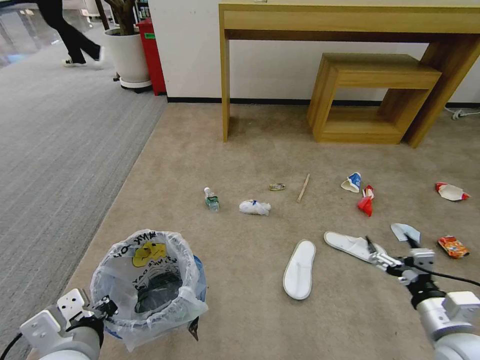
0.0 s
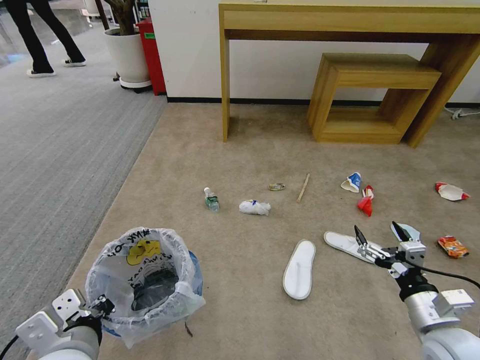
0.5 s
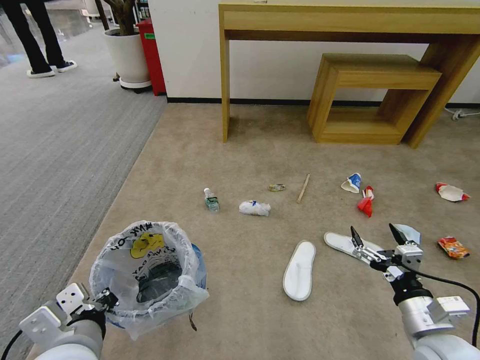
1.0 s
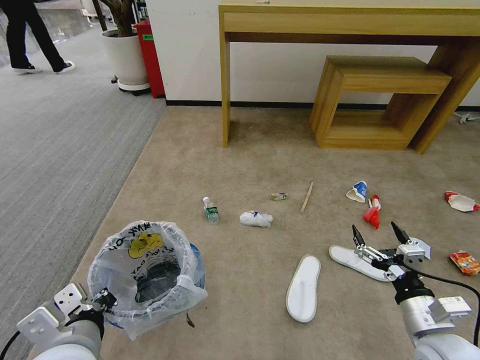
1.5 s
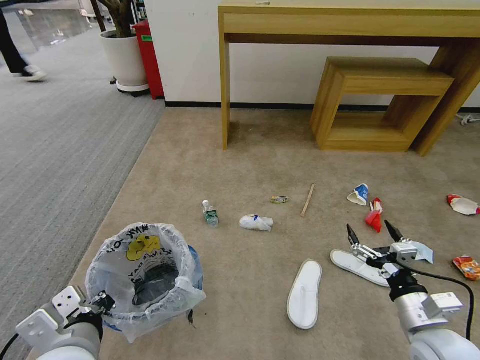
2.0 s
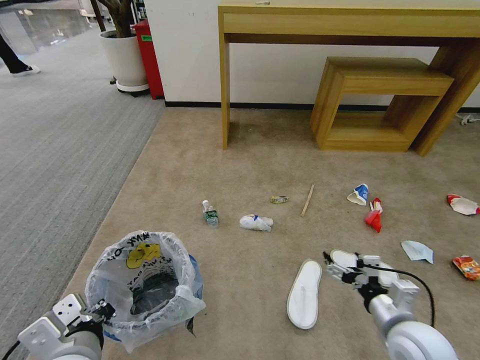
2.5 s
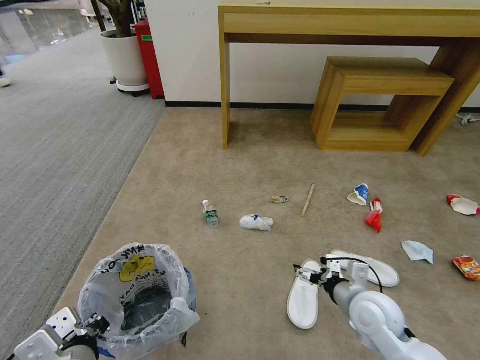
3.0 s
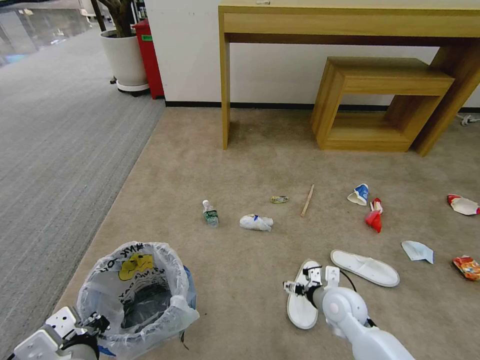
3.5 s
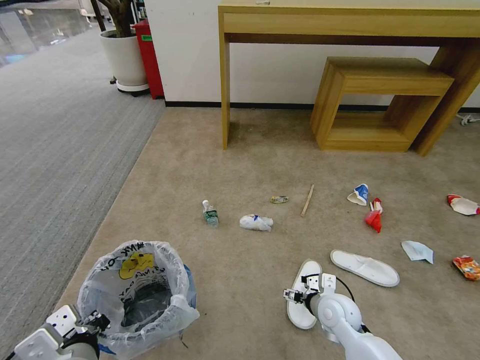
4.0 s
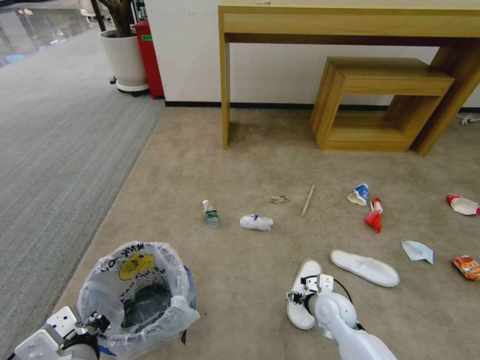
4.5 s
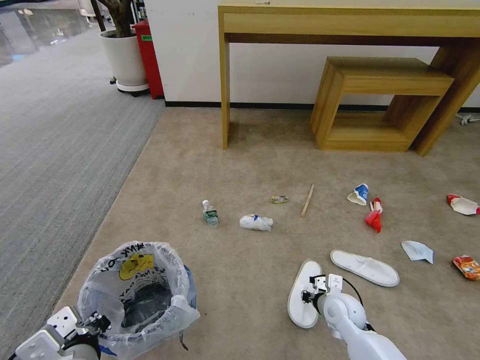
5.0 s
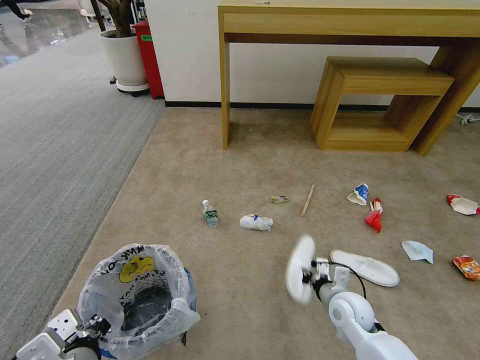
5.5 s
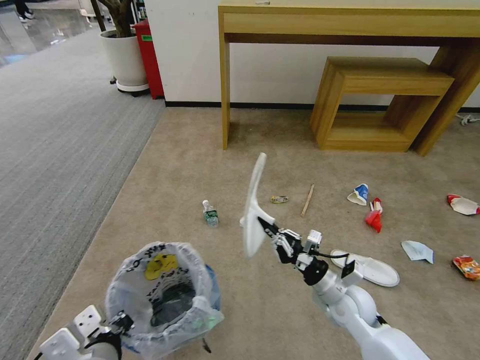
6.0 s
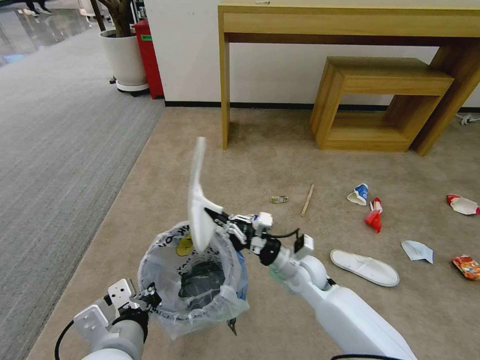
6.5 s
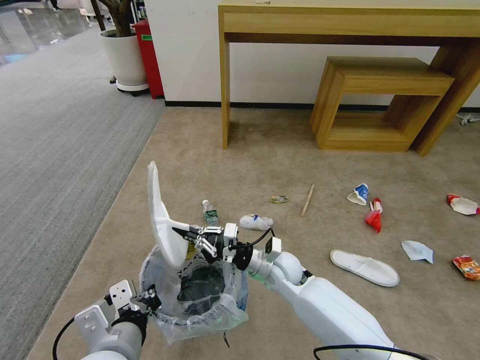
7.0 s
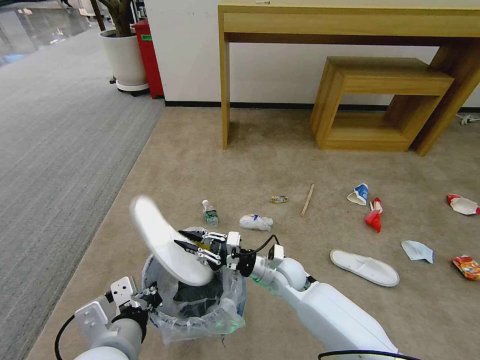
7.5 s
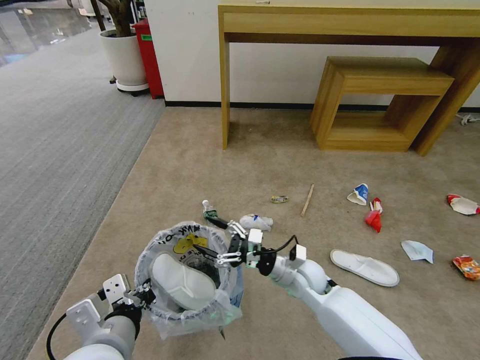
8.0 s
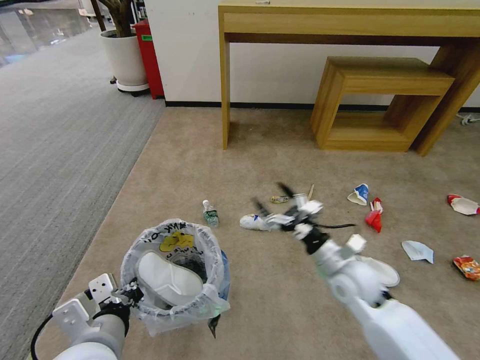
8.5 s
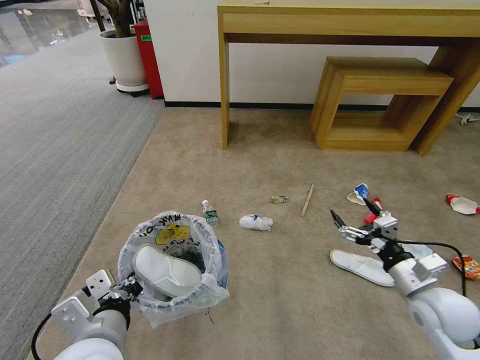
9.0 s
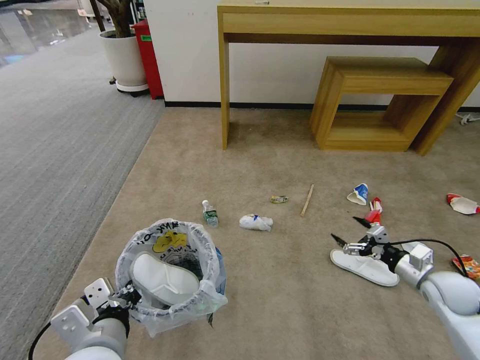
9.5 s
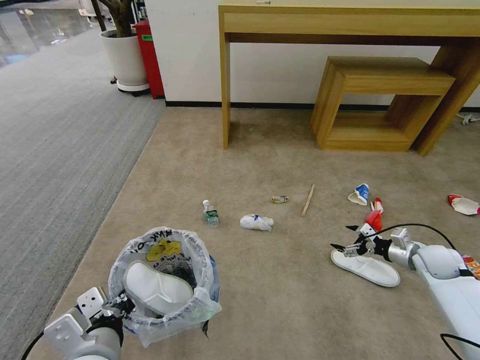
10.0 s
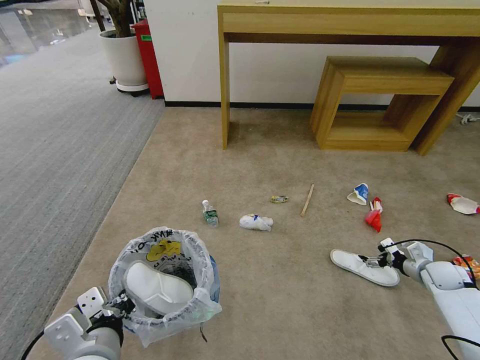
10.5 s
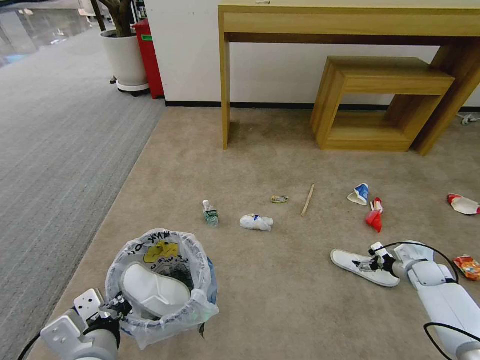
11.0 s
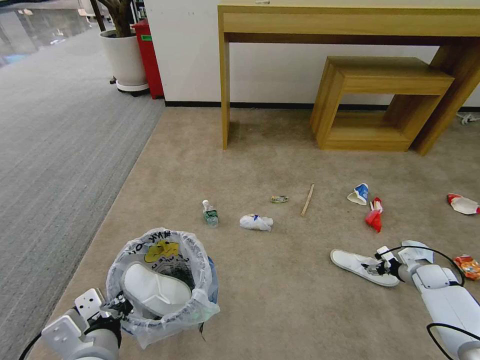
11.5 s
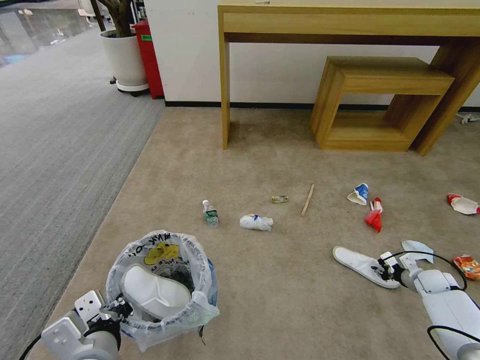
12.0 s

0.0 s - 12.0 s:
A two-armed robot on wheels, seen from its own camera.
Task of the whole recording: Pick up the trash bin and place the garbage on the floor into it.
2.0 s - 4.0 s: The right gripper heads downward, to the left and forward, covering about 20 cm.
4.0 s - 6.0 s: The right gripper goes about 5 cm upward, and closes its fingers.
6.0 s - 8.0 s: The right gripper shifts roughly 10 cm to the left and forward, and opens up.
8.0 s - 10.0 s: The right gripper travels to the right by some 35 cm.
10.0 s - 12.0 s: The right gripper is displaced downward and to the right by roughly 15 cm, and closes its fingers.

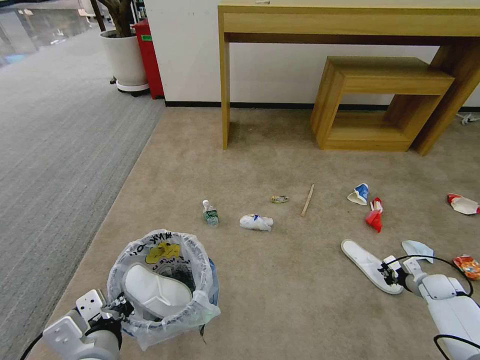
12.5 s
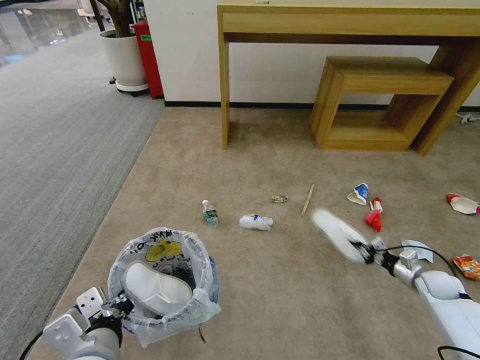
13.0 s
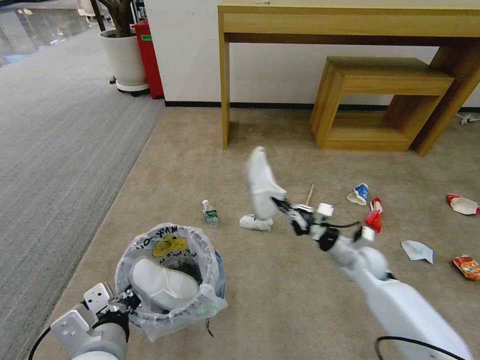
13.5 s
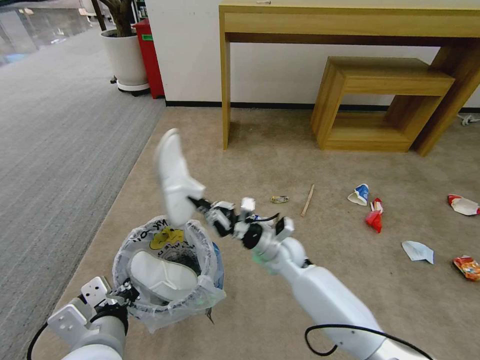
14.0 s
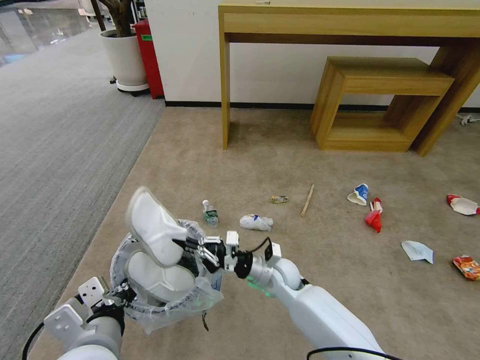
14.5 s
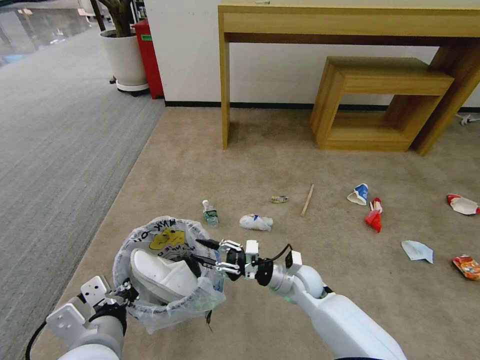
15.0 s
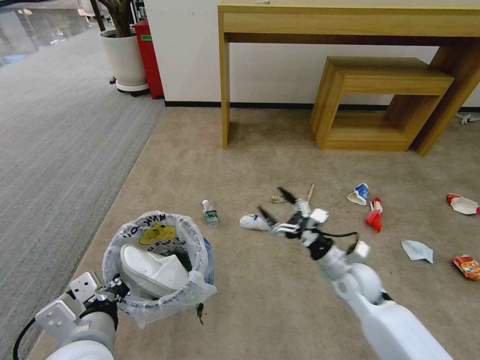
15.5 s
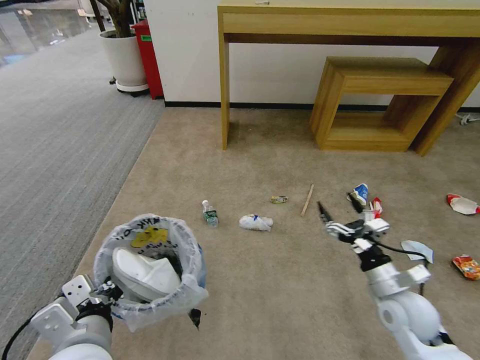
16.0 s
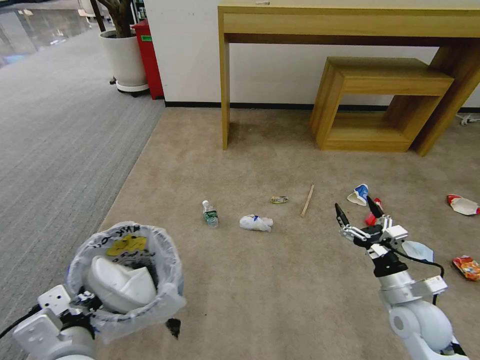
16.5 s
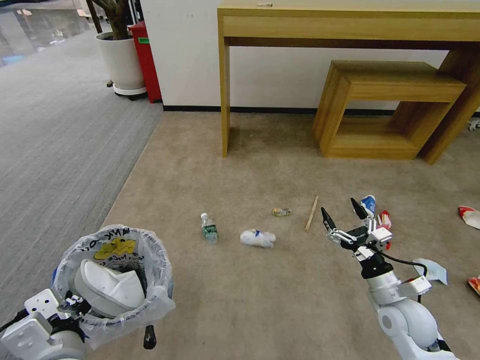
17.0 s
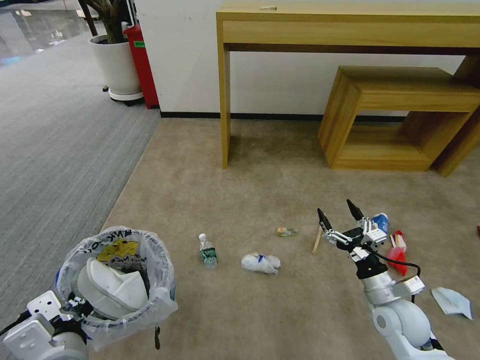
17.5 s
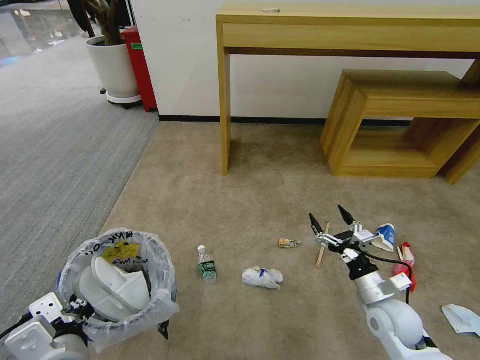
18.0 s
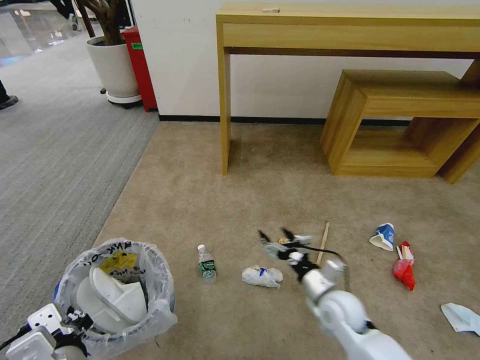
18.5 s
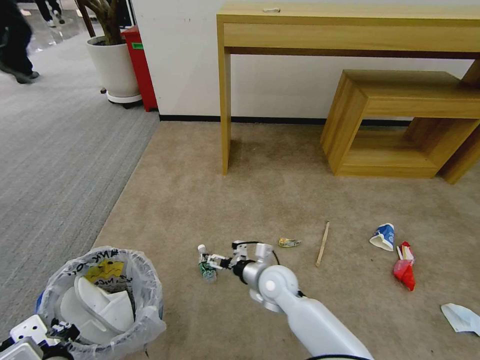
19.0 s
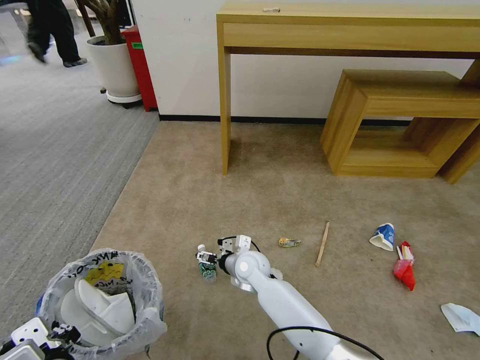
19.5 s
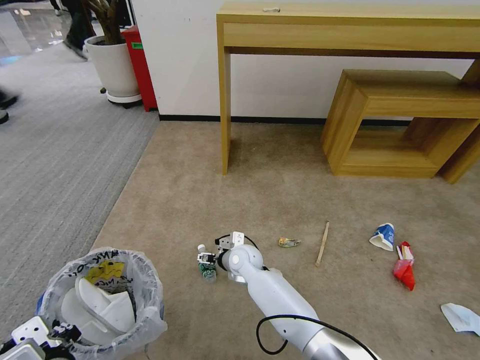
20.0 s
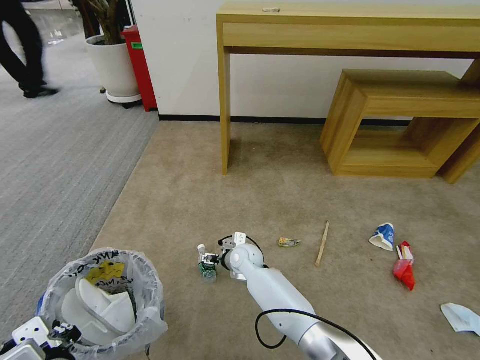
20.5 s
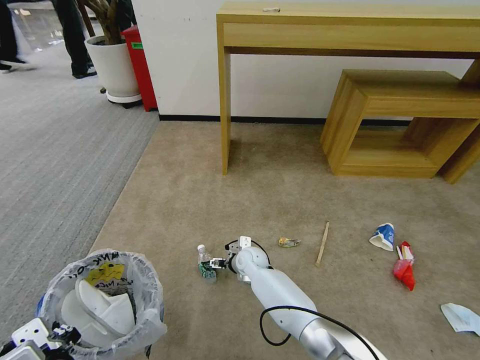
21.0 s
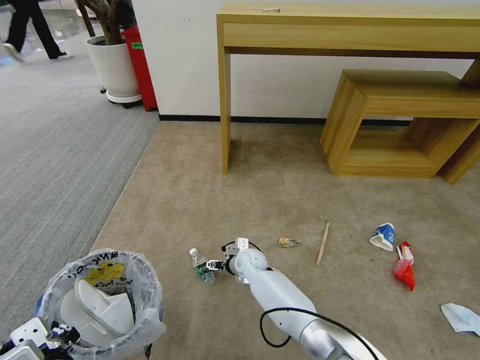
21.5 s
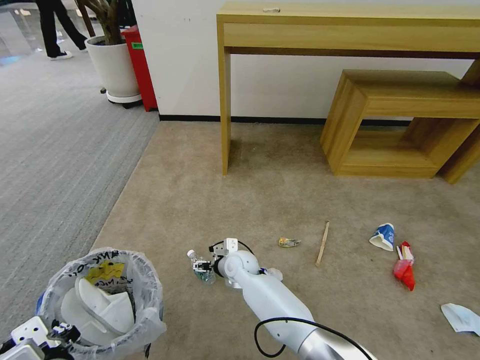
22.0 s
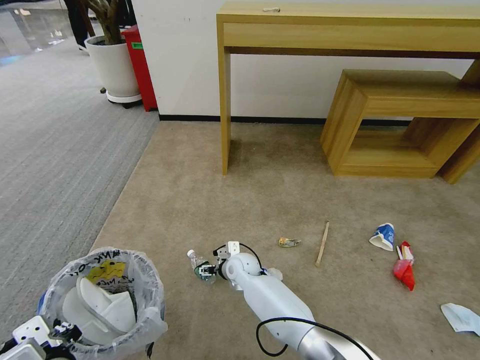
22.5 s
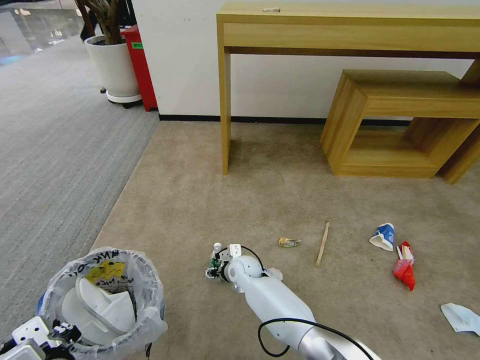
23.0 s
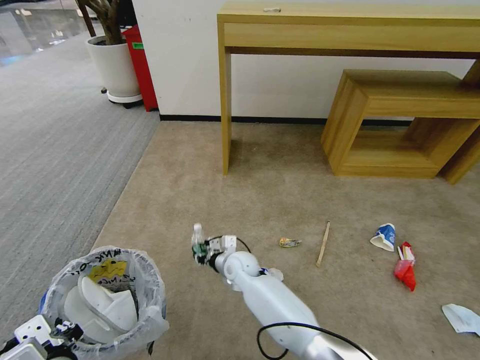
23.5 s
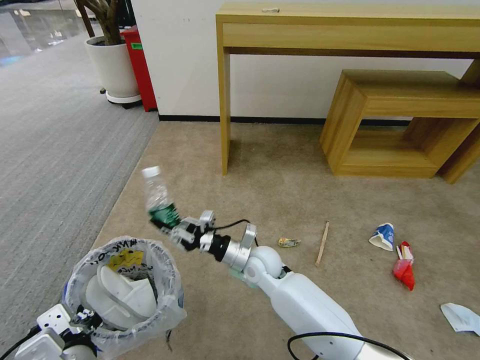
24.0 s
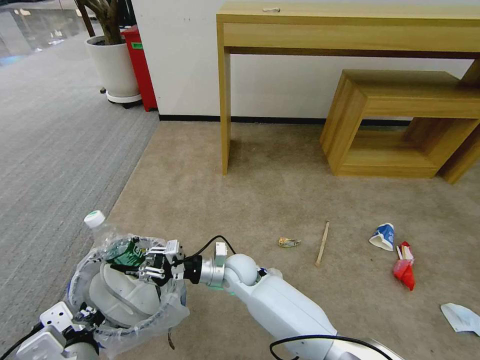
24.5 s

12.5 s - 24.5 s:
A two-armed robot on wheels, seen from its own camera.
Task of the whole recording: Pick up the trash bin and place the garbage on the floor into it.
12.5 s - 14.5 s: The right gripper travels to the left by about 50 cm.
14.5 s - 16.5 s: The right gripper is displaced to the right and backward by some 30 cm, and opens.
16.5 s - 18.5 s: The right gripper shifts some 15 cm to the left.
18.5 s - 20.5 s: The right gripper heads to the left and forward, covering roughly 25 cm.
20.5 s - 22.5 s: The grippers move only a little.
22.5 s - 24.5 s: The right gripper heads upward, covering roughly 10 cm, and closes up.

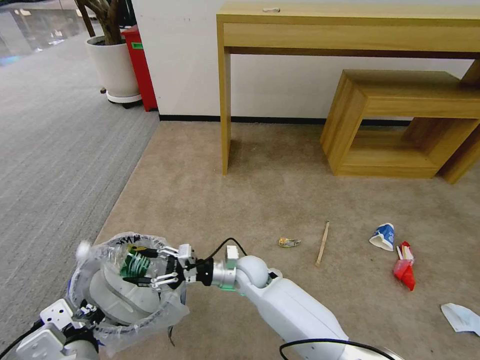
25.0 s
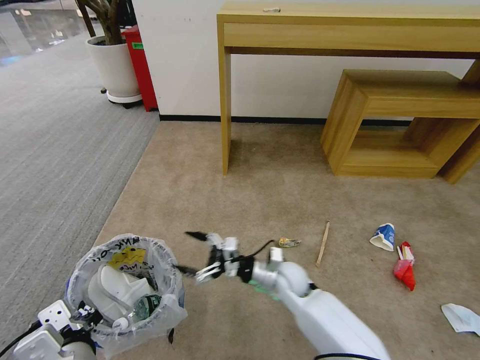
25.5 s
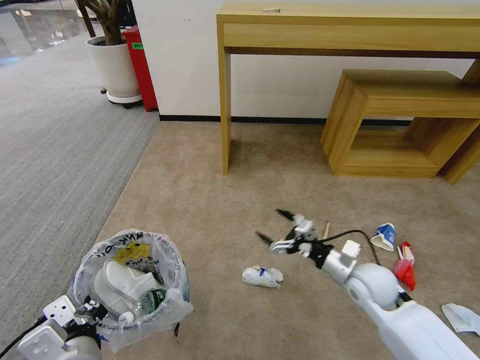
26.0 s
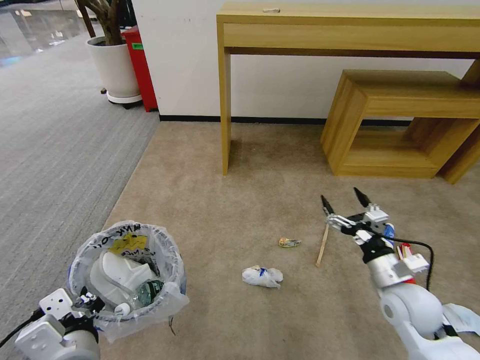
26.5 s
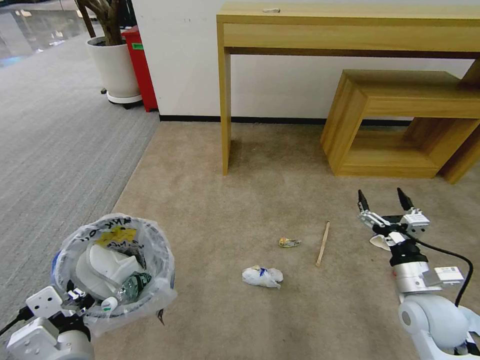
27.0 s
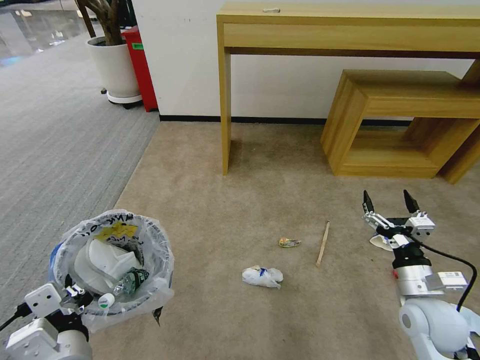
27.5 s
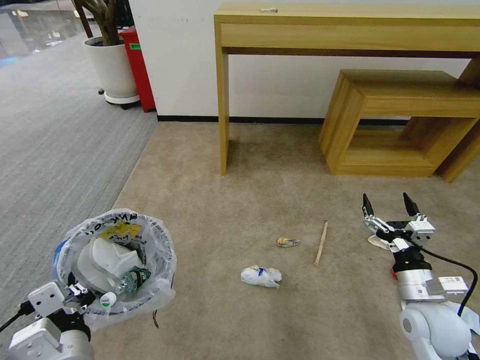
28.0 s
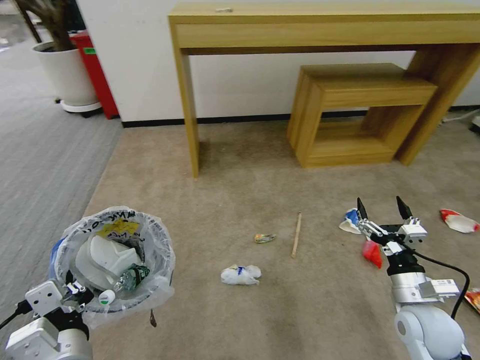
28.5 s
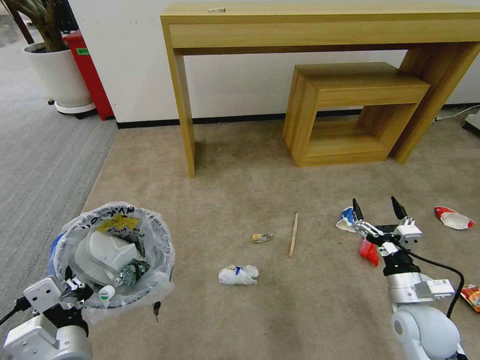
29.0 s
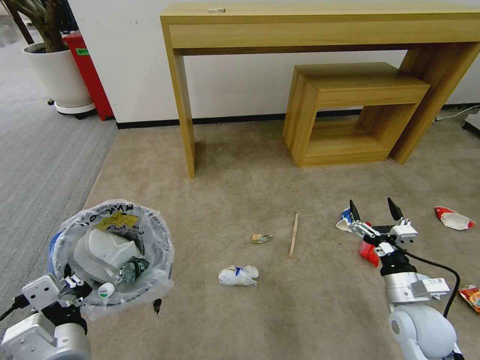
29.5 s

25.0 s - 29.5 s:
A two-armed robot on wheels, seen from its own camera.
Task of the whole recording: Pick up the trash bin and place the garbage on the floor into it.
25.0 s - 27.0 s: The right gripper is displaced to the right by approximately 35 cm.
